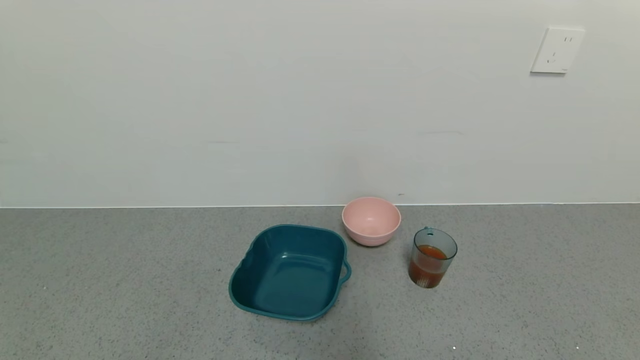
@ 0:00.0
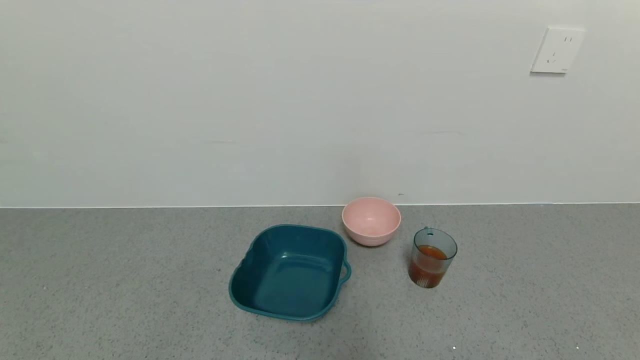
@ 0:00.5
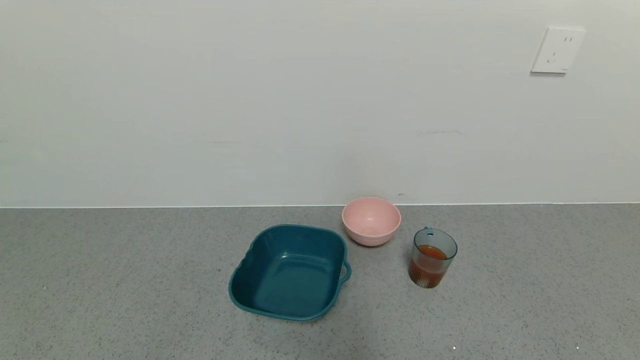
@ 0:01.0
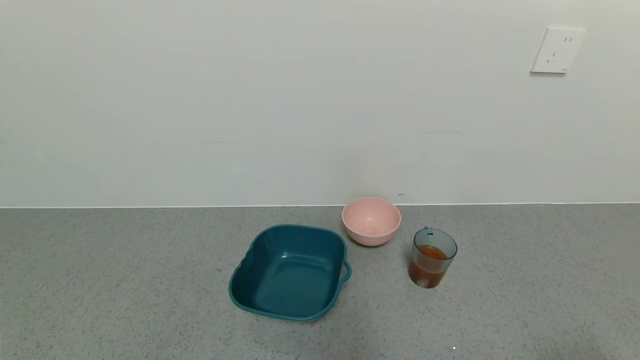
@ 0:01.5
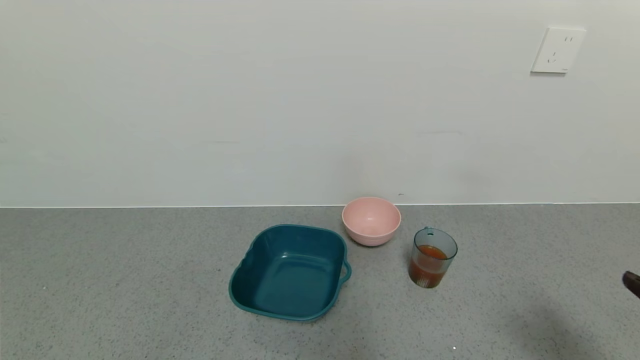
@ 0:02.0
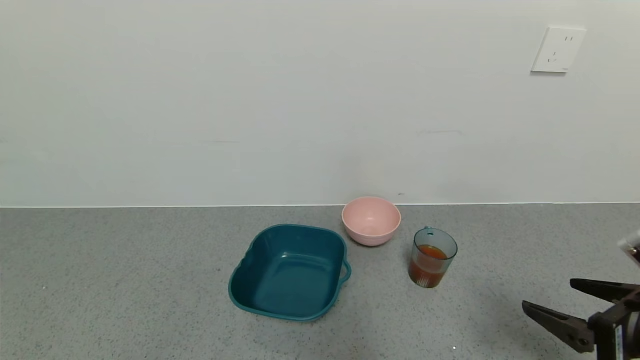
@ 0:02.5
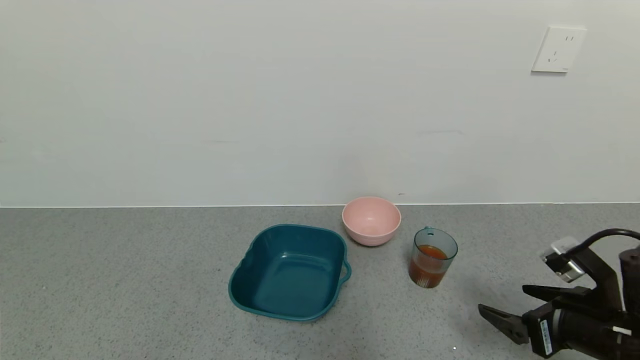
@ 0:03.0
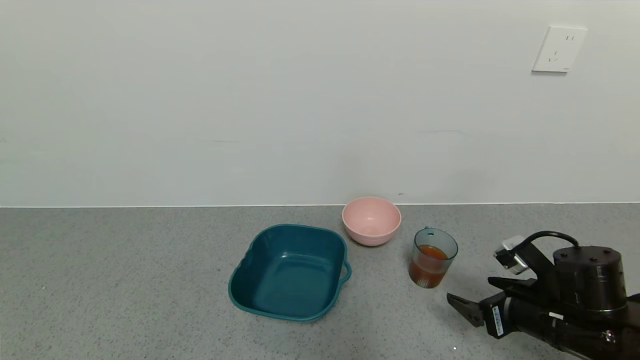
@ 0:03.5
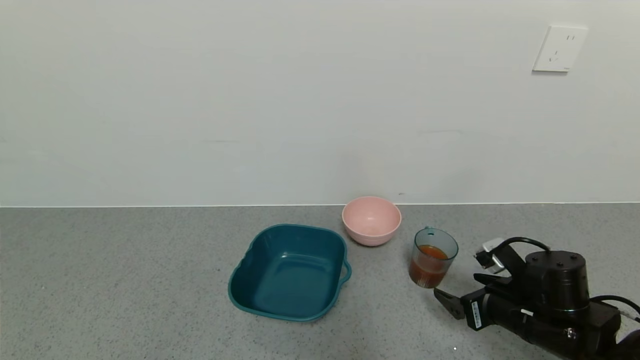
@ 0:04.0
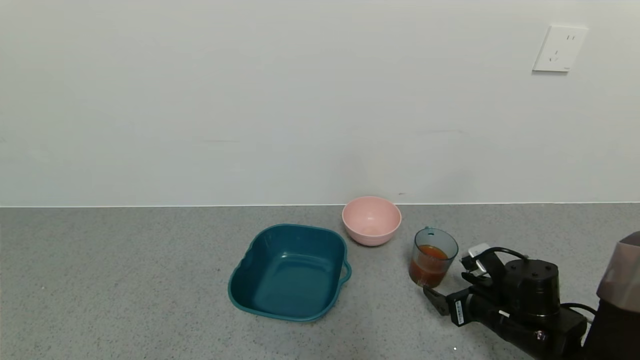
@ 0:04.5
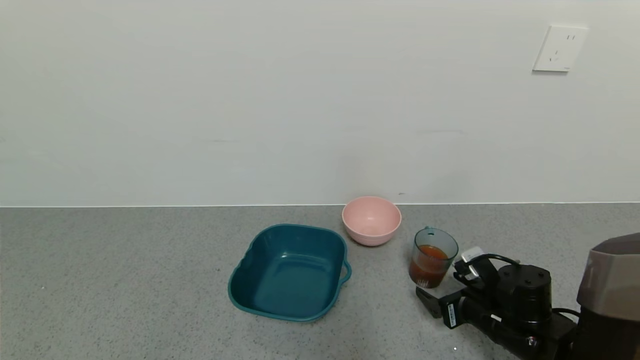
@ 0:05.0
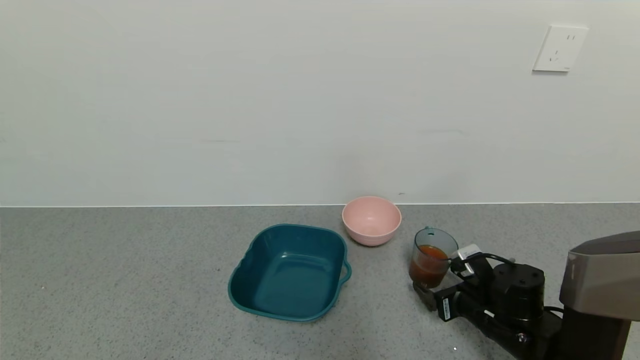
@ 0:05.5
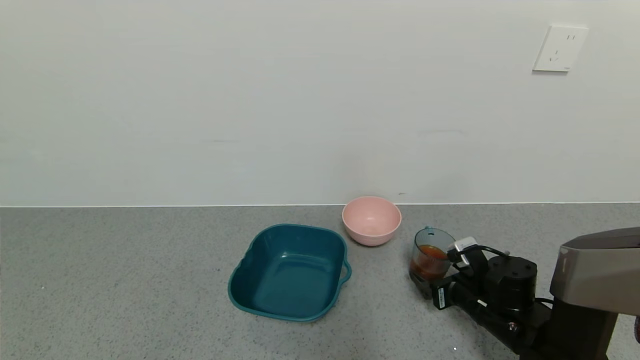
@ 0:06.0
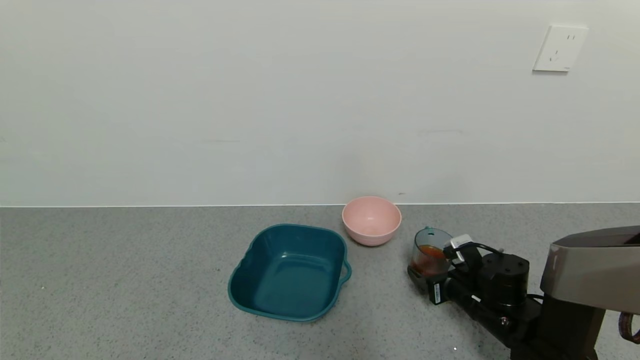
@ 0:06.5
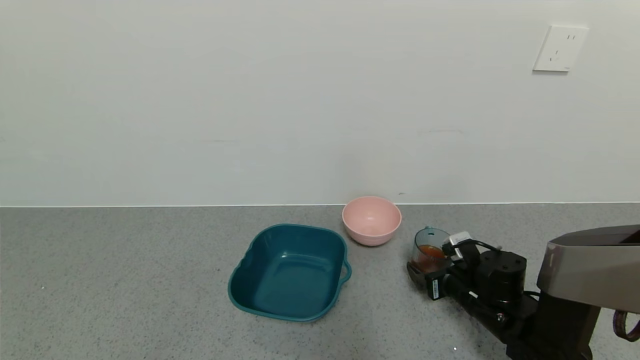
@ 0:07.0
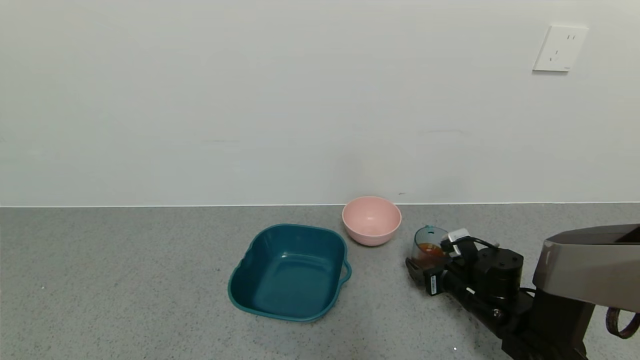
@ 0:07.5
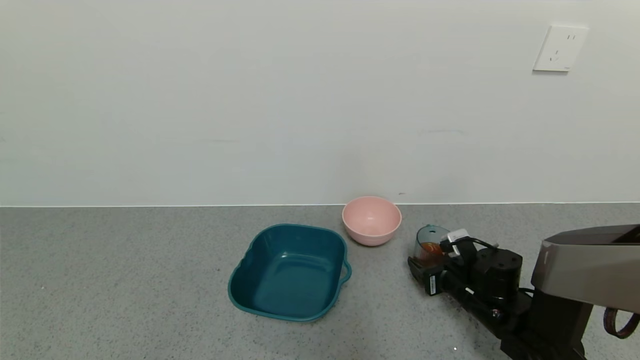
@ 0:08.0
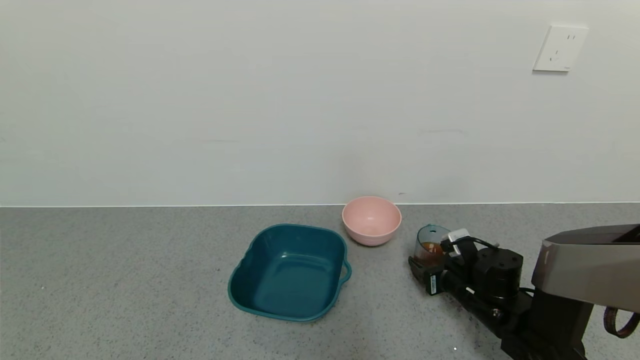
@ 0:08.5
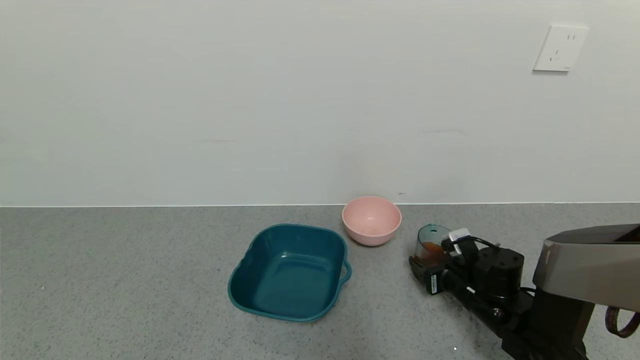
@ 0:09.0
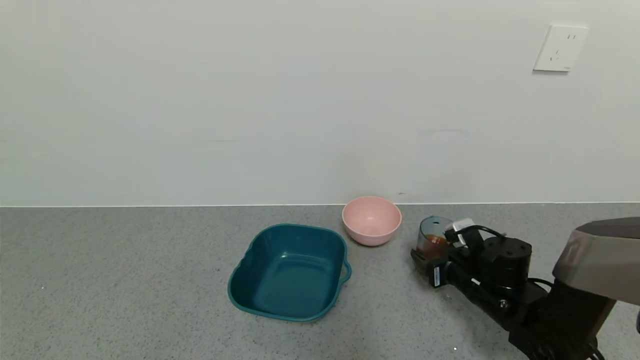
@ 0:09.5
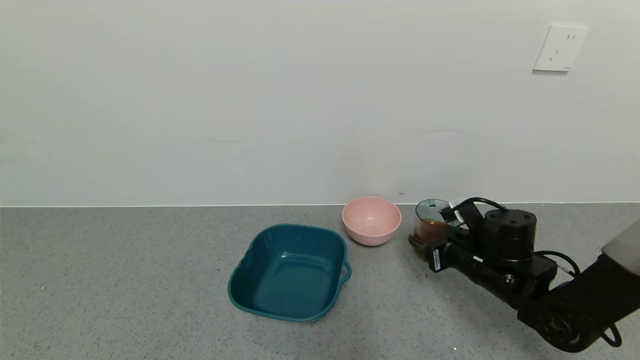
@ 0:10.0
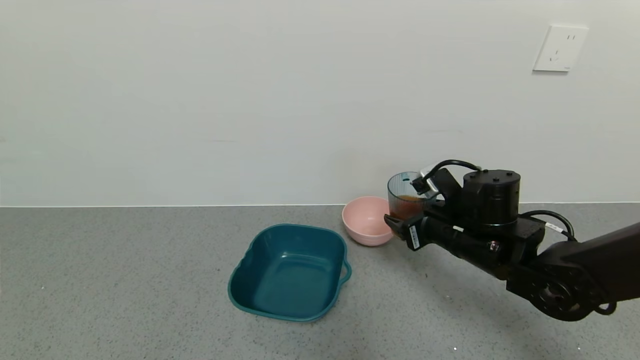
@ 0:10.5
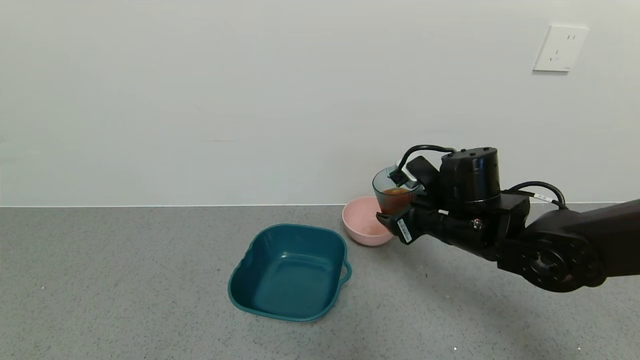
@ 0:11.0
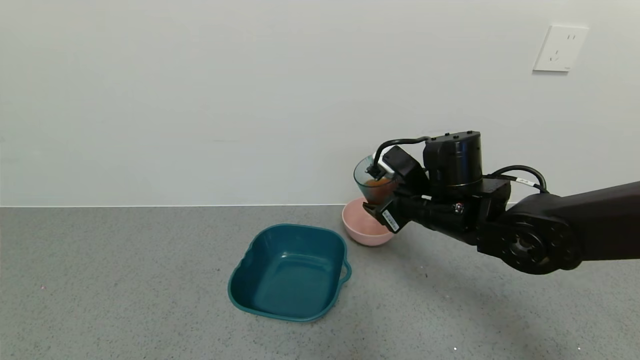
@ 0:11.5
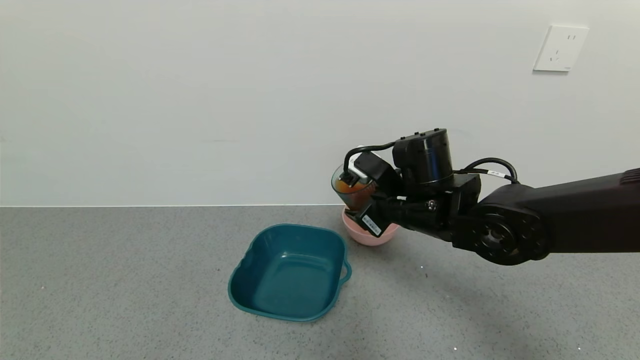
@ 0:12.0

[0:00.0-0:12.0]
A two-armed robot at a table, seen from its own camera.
Task of the whole recording: use a gripper to pick up the cup and pour the liquid into a bowl or tray.
Step, 0:00.0 to 0:09.0: Pick up blue cup filled with orange juice with right gripper.
0:00.0 to 0:02.0: The right gripper travels upward and forward by some 15 cm.
0:02.0 to 0:04.0: The right gripper moves forward, downward and to the left, about 25 cm.
0:04.0 to 0:06.0: The right gripper ends up about 5 cm from where it was.
0:06.0 to 0:08.0: The right gripper closes up.
0:08.0 to 0:10.0: The right gripper goes some 10 cm upward.
0:10.0 to 0:12.0: The right gripper travels to the left and upward by approximately 15 cm.

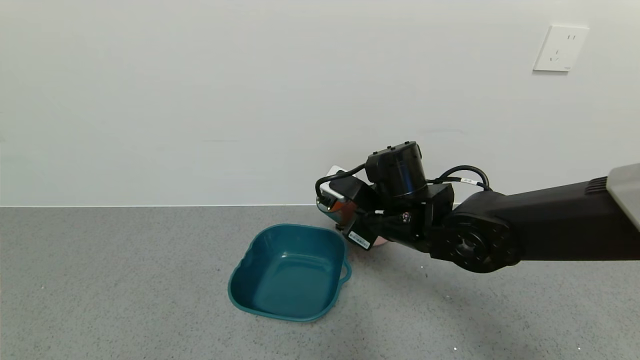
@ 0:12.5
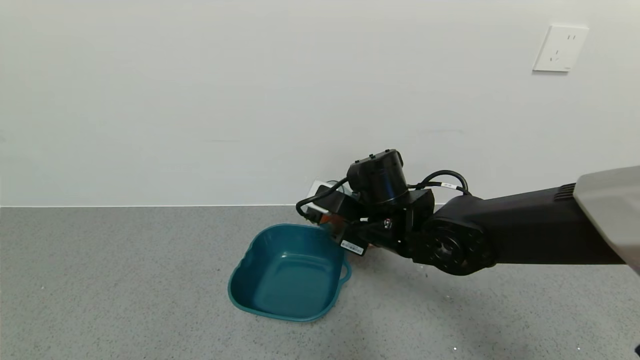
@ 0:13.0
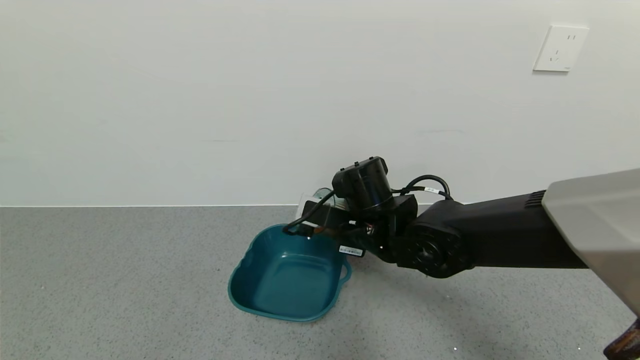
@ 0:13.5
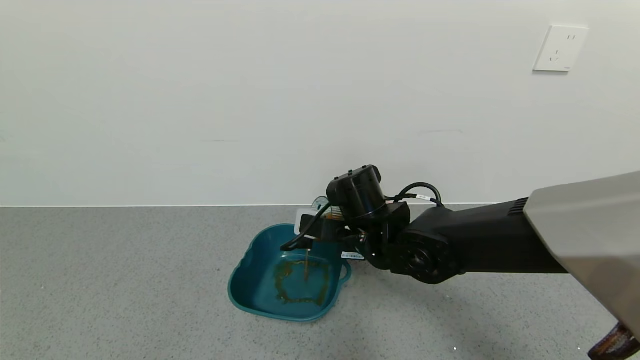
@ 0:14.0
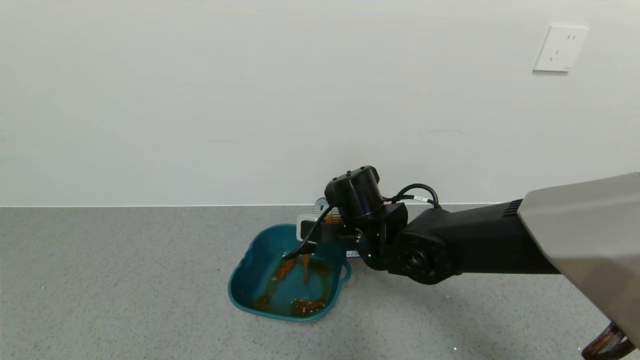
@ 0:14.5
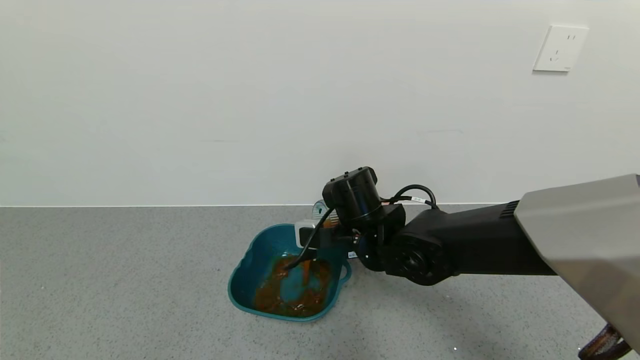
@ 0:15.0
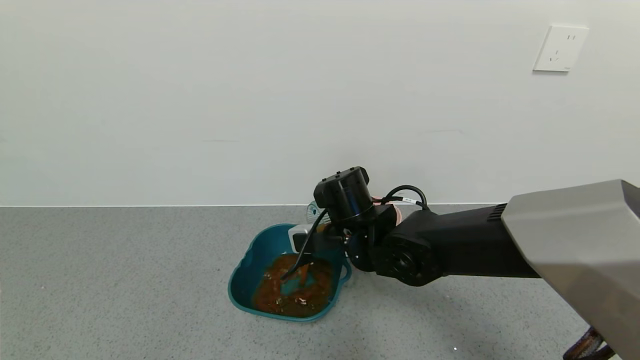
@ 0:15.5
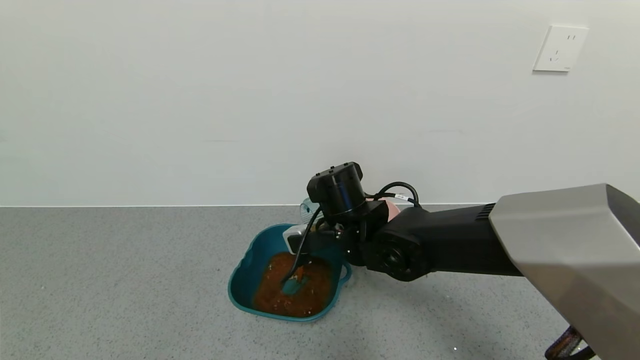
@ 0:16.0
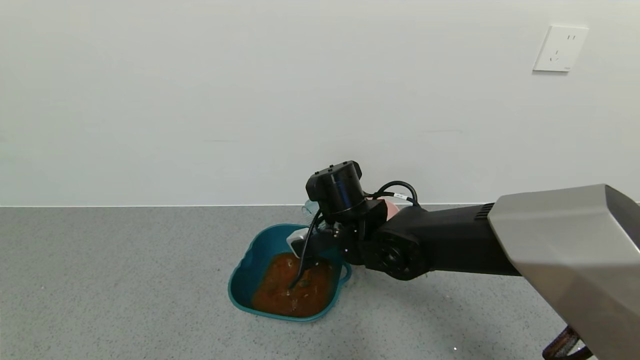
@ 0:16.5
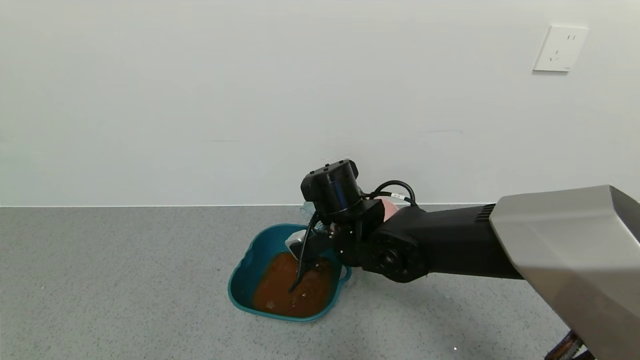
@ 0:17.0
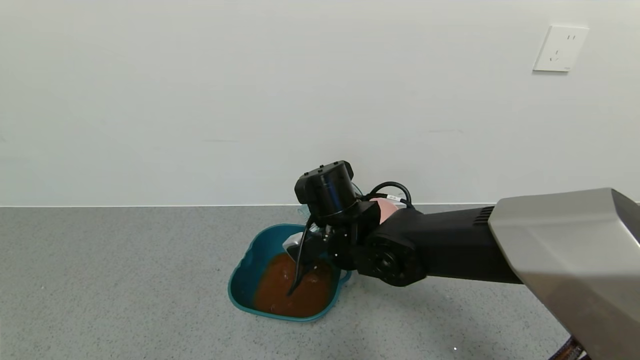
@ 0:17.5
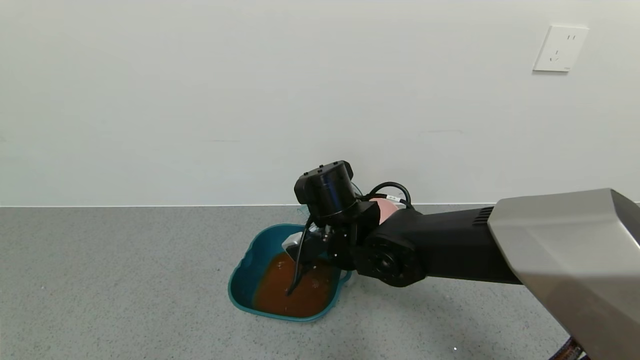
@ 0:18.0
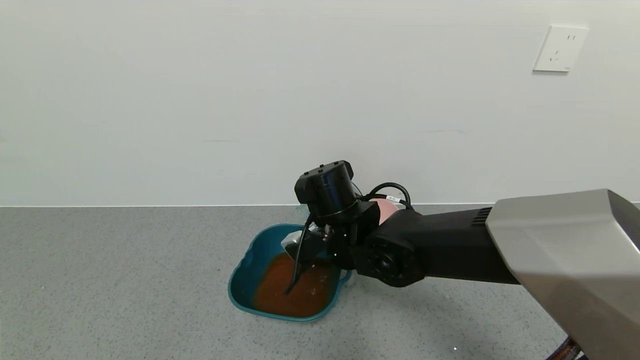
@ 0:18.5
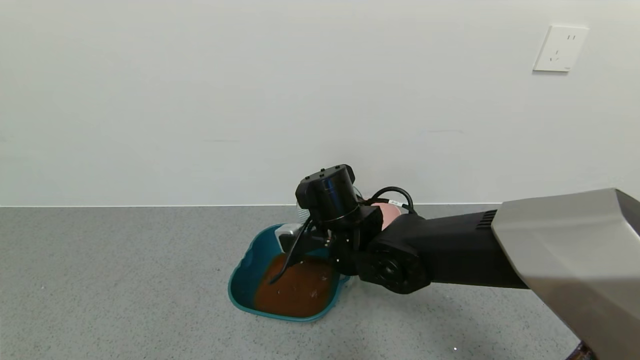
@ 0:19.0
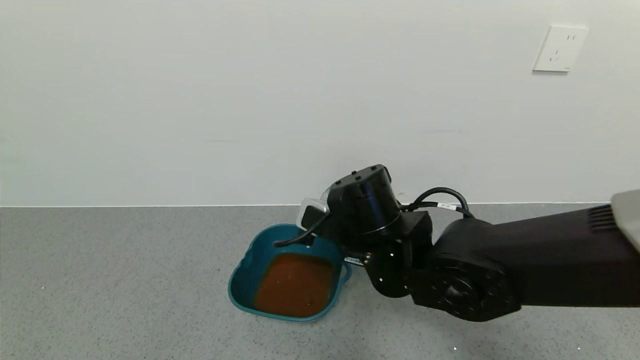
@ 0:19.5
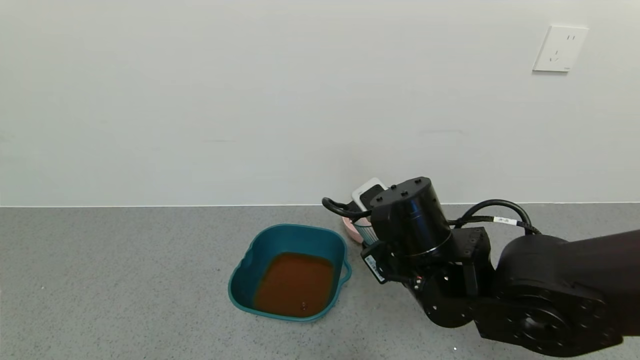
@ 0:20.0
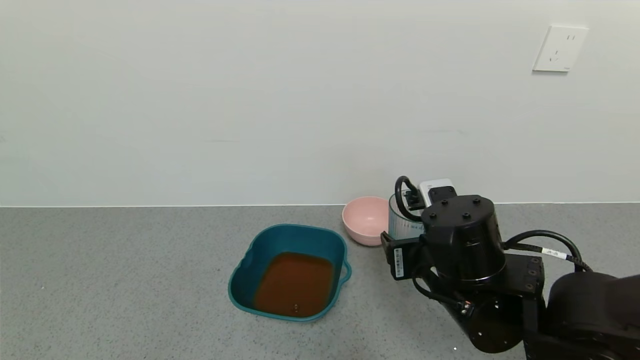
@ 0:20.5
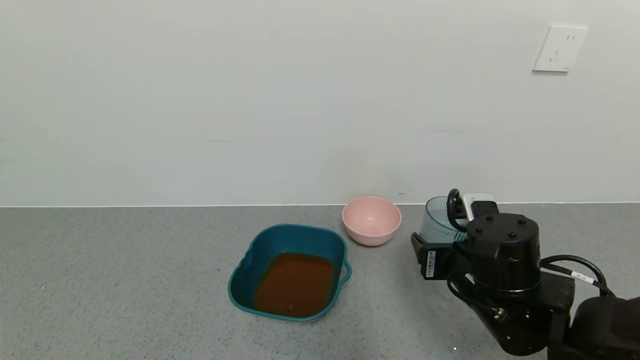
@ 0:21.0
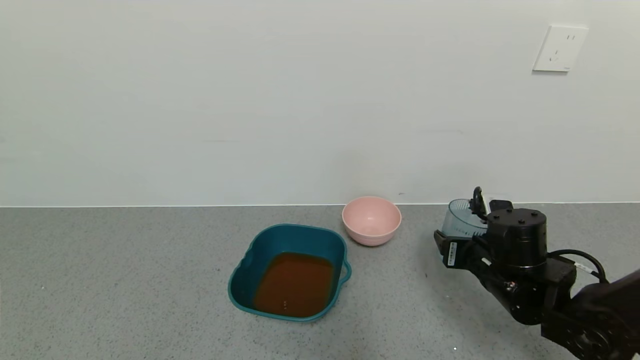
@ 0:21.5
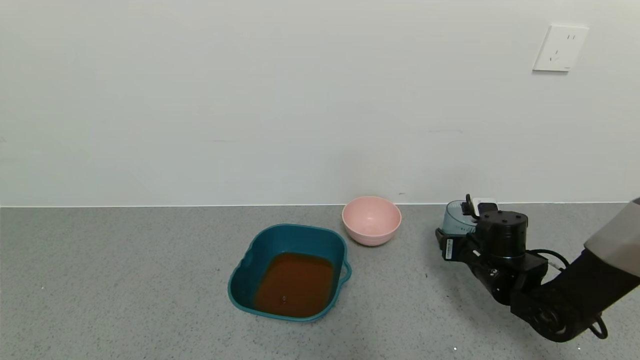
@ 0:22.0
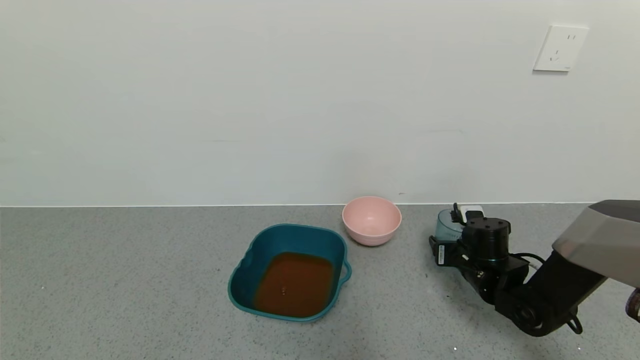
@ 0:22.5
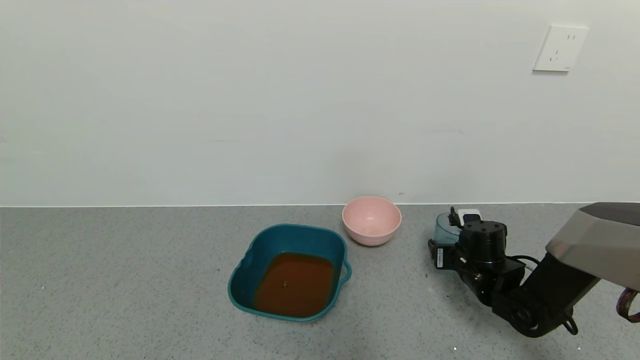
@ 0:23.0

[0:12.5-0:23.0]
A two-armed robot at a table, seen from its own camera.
Task of the whole recording: use a gripper to pick up the cup and pour the liquid into a bowl or tray.
Step, 0:12.5 to 0:17.0: Pour the orange juice into the blue basin with right gripper.
0:16.5 to 0:19.0: The grippers stay close to where they were, moving slightly.
0:19.0 to 0:21.0: The right gripper is displaced to the right and backward by some 20 cm.
0:21.0 to 0:23.0: The right gripper shifts approximately 15 cm forward, downward and to the right.
